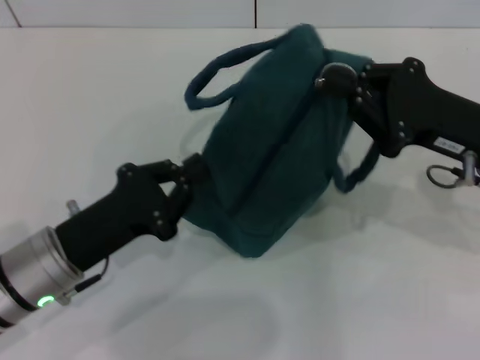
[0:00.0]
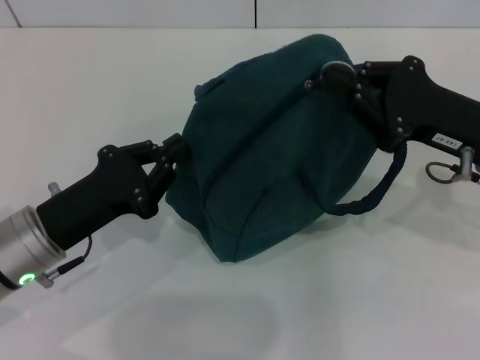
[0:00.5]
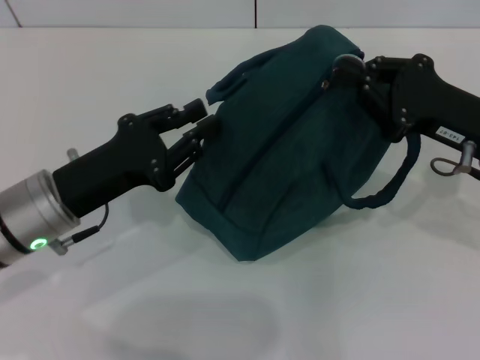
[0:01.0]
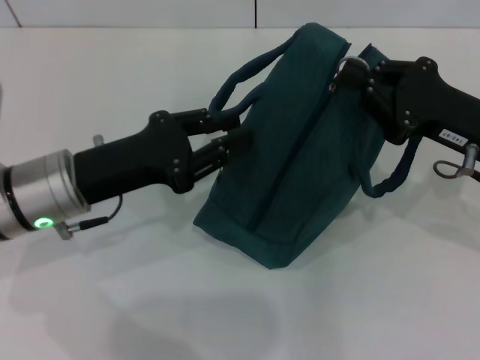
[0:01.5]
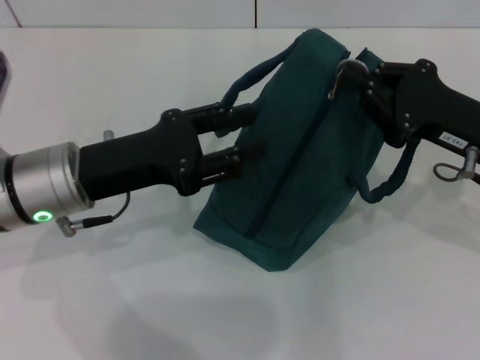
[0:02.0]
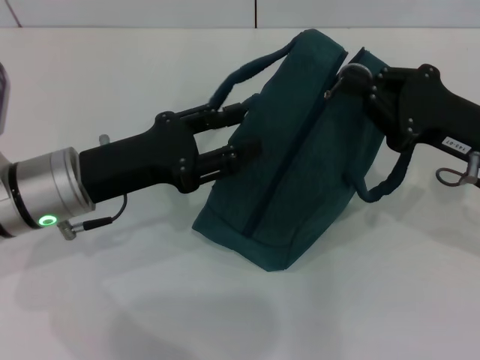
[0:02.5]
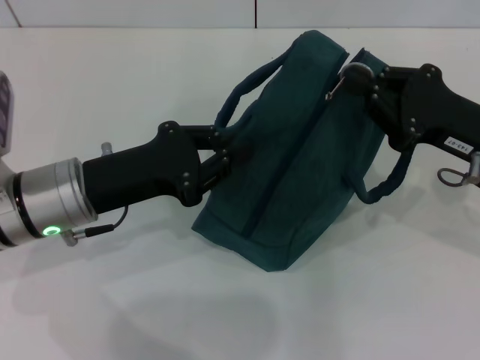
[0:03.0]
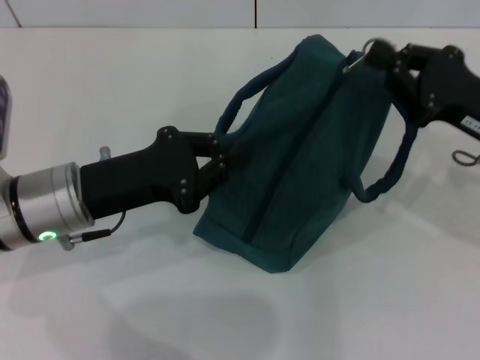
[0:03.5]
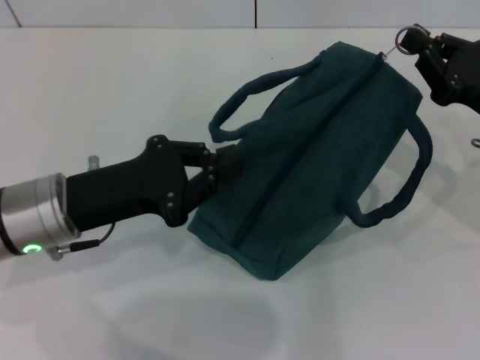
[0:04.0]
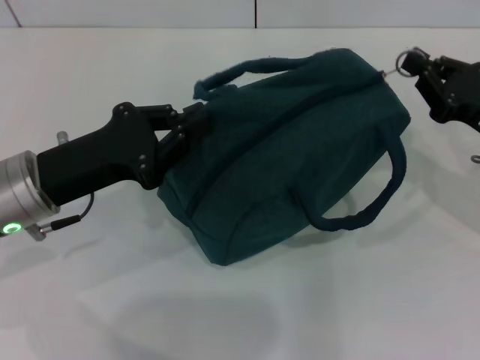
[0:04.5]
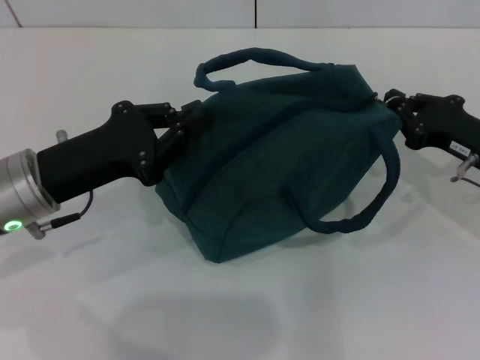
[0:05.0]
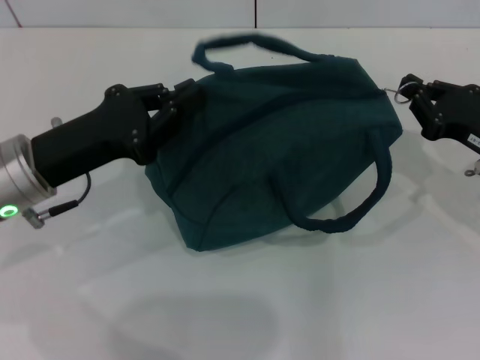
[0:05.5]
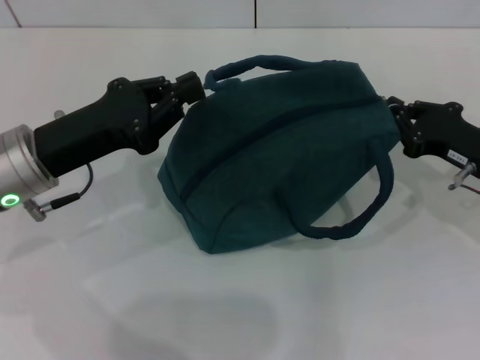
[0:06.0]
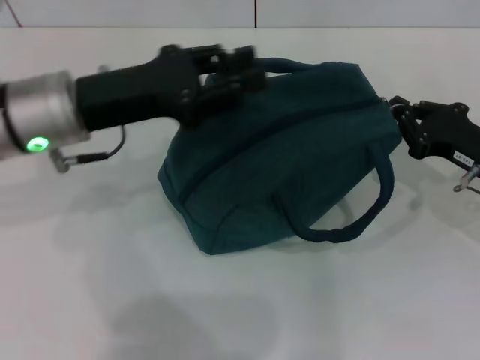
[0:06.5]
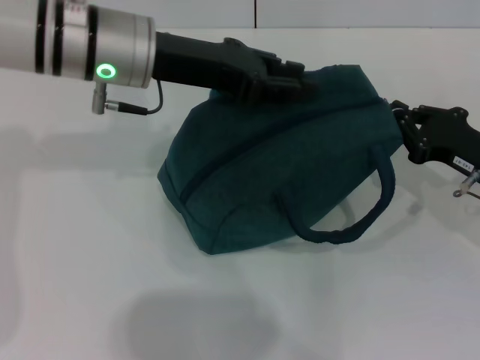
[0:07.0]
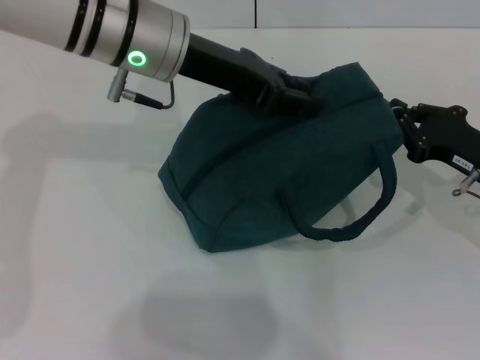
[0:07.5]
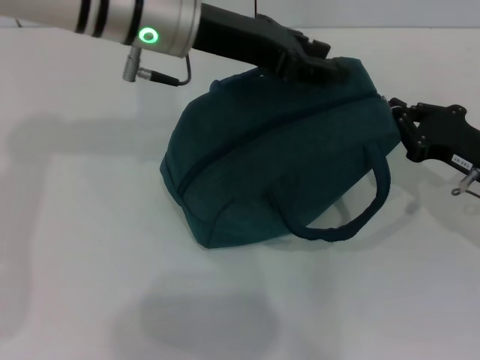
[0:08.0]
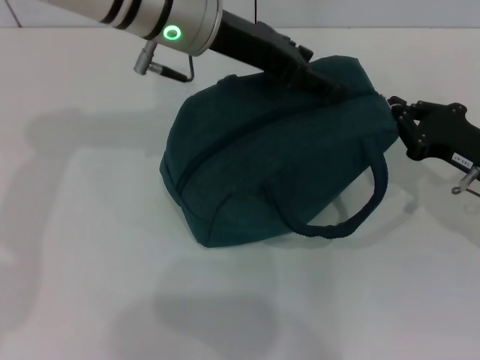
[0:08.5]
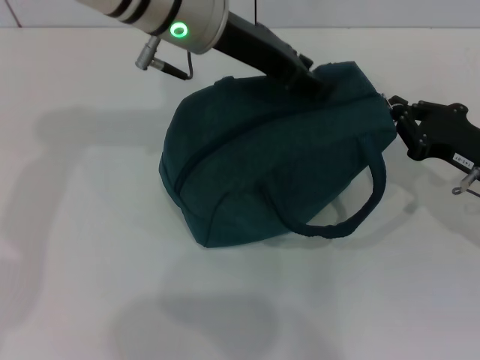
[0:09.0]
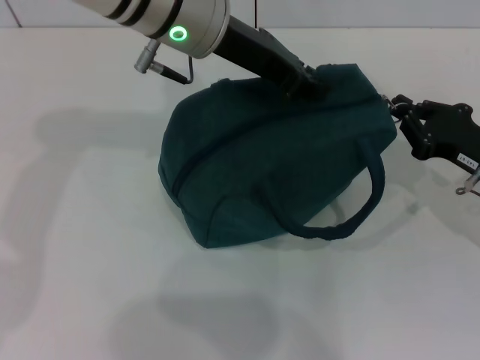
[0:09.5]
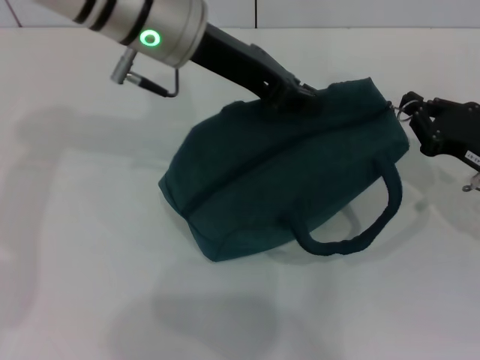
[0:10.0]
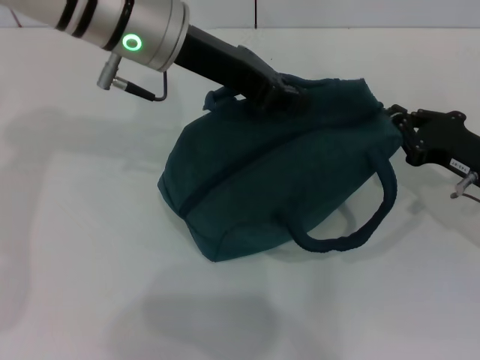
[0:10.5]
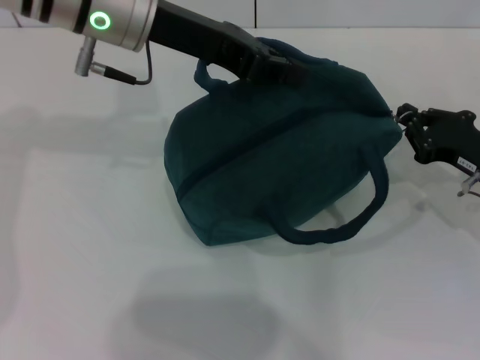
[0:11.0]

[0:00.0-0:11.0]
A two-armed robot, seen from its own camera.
0:00.0 to 0:02.0: The left gripper is displaced upward and forward by about 10 cm, and opens up.
0:02.0 to 0:03.5: The left gripper closes its fingers.
0:03.5 to 0:05.5: The right gripper ends up some 5 cm from where it was.
0:05.5 to 0:07.5: The left gripper moves to the right, forward and upward, roughly 20 cm, and opens.
0:07.5 to 0:09.0: The grippers stay close to where they were, moving slightly.
0:09.0 to 0:11.0: The left gripper travels to the left by about 5 cm, and closes.

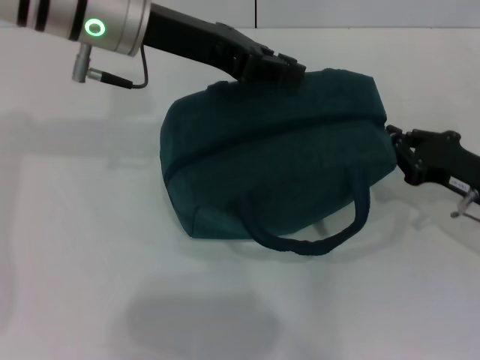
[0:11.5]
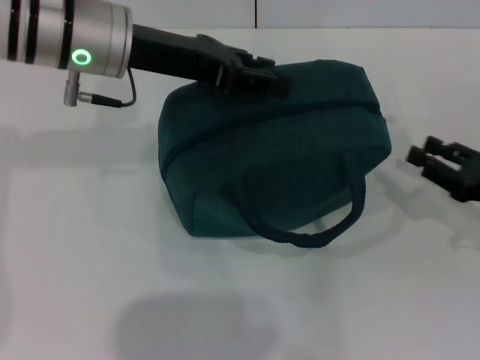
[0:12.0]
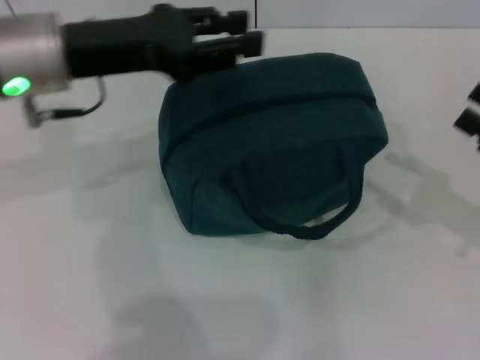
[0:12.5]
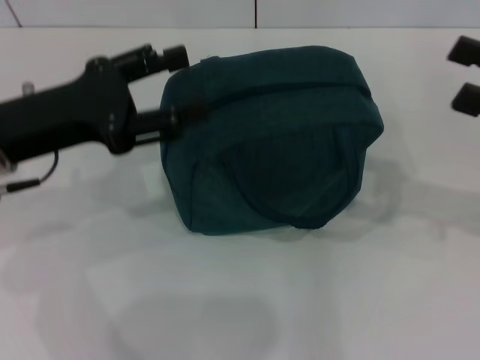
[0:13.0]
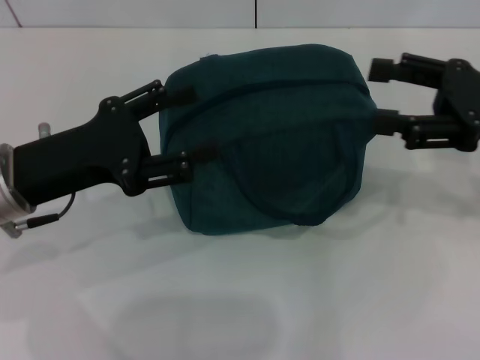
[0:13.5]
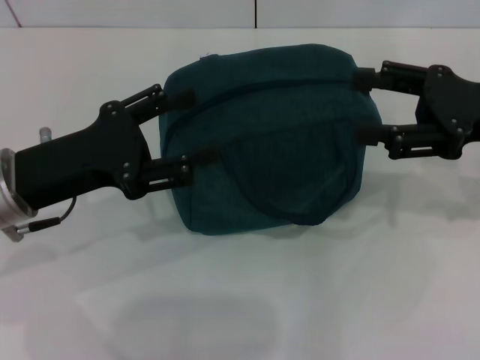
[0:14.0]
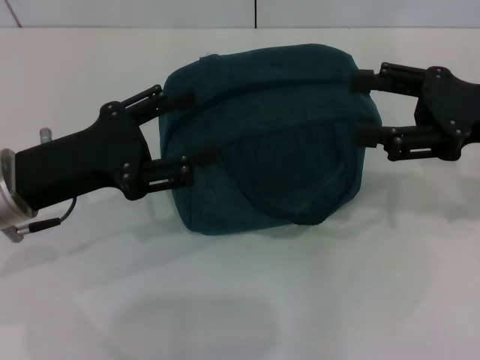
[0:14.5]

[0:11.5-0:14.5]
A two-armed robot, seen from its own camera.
0:11.5 to 0:13.0: The left gripper is displaced to the left, backward and downward by approximately 15 cm, and opens; the right gripper moves upward, about 15 cm, and opens up.
0:13.0 to 0:14.5: The right gripper moves to the left, about 5 cm.
